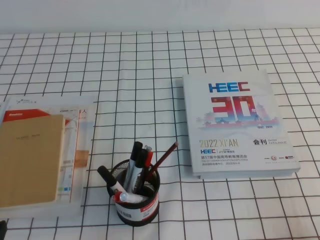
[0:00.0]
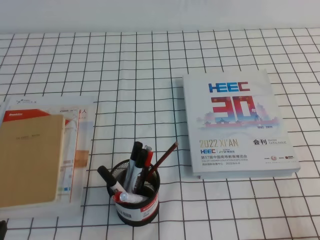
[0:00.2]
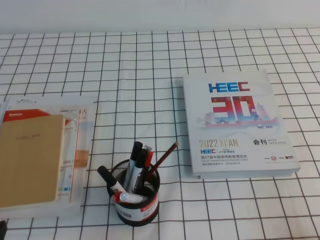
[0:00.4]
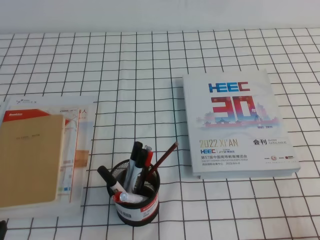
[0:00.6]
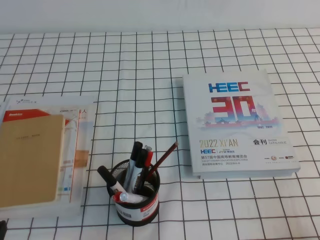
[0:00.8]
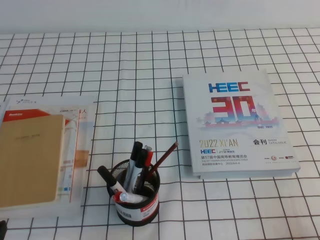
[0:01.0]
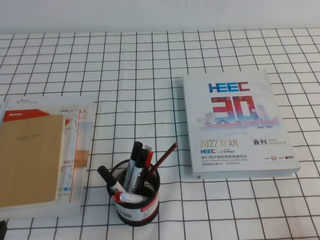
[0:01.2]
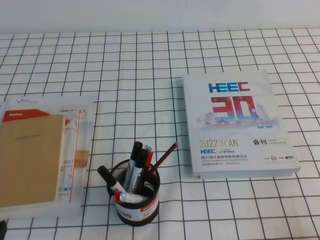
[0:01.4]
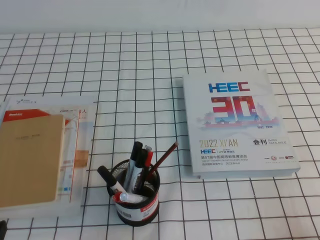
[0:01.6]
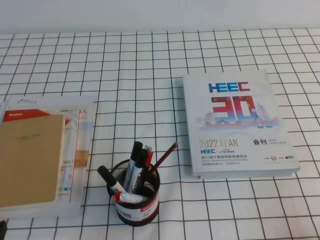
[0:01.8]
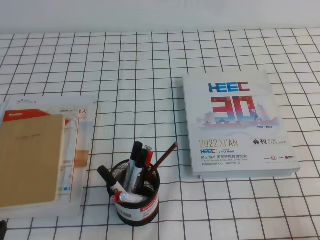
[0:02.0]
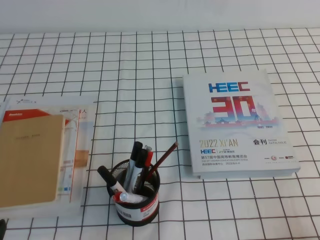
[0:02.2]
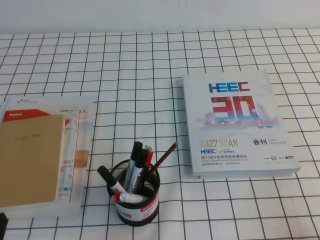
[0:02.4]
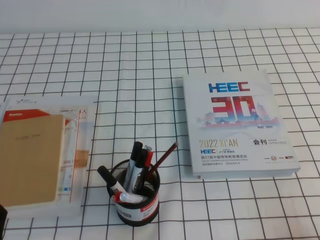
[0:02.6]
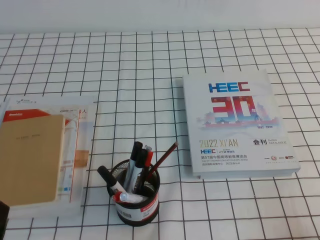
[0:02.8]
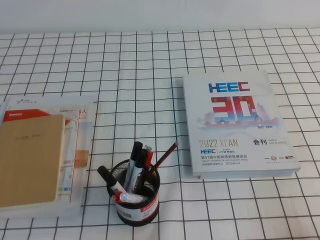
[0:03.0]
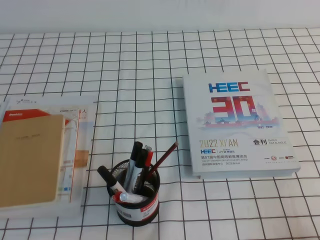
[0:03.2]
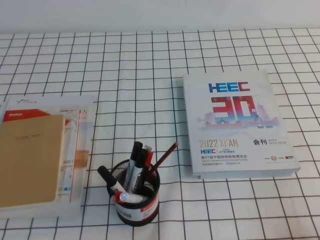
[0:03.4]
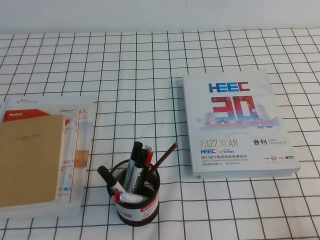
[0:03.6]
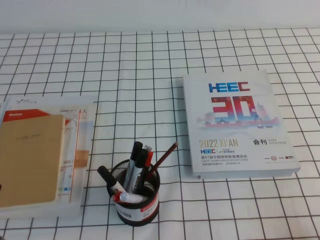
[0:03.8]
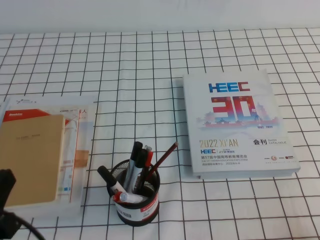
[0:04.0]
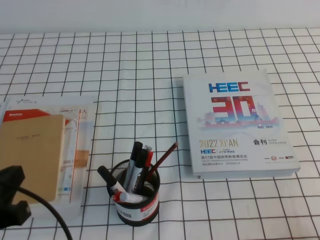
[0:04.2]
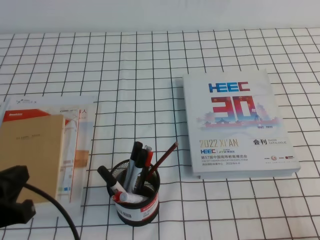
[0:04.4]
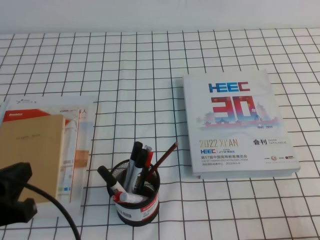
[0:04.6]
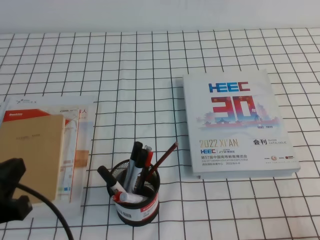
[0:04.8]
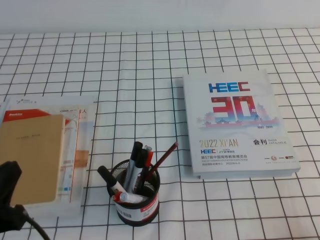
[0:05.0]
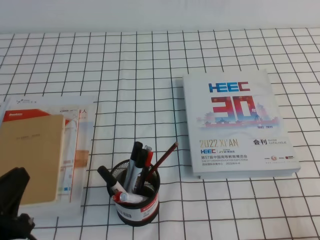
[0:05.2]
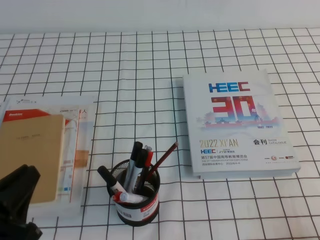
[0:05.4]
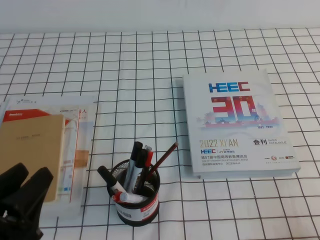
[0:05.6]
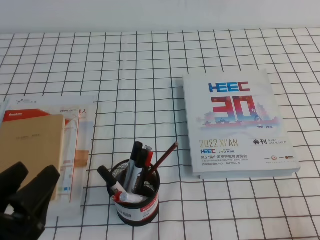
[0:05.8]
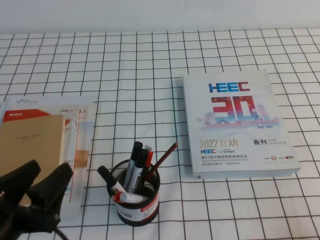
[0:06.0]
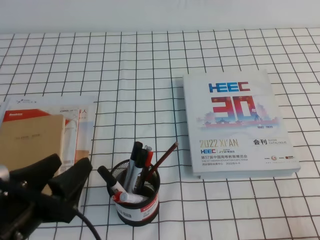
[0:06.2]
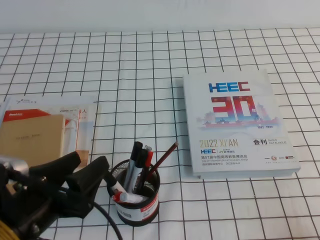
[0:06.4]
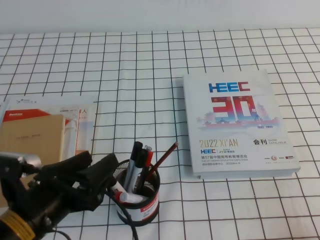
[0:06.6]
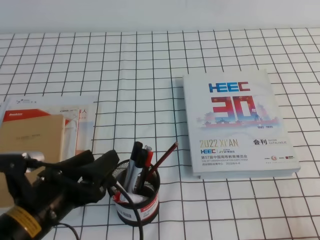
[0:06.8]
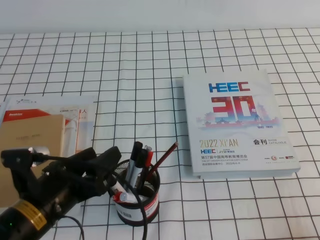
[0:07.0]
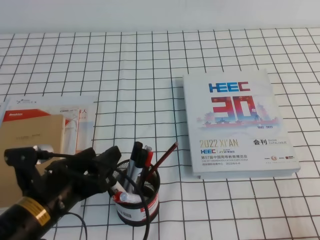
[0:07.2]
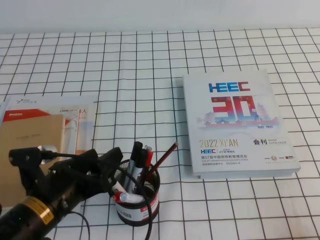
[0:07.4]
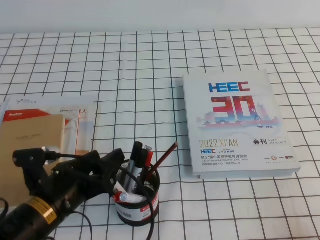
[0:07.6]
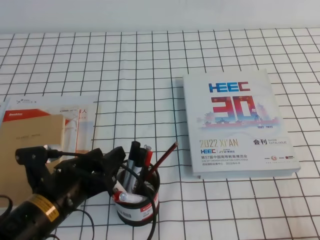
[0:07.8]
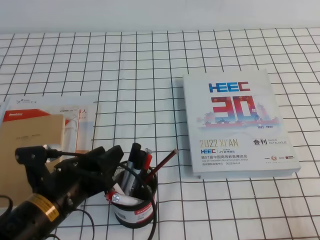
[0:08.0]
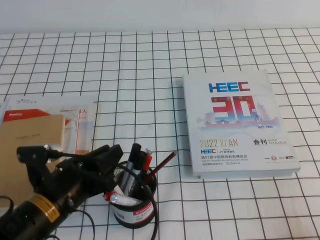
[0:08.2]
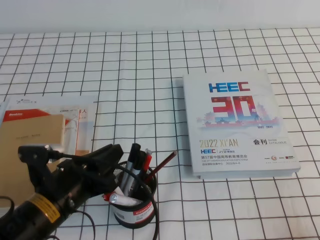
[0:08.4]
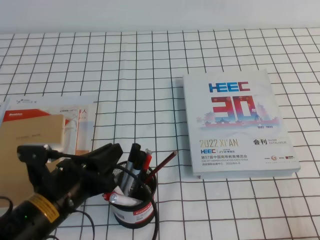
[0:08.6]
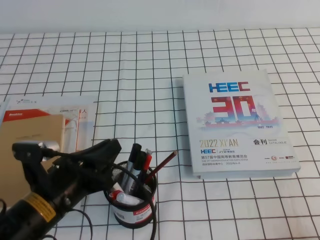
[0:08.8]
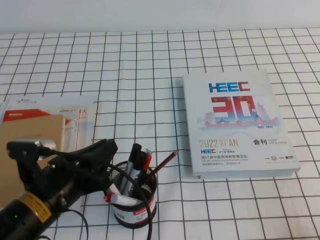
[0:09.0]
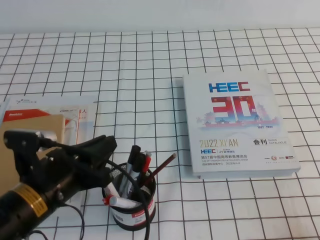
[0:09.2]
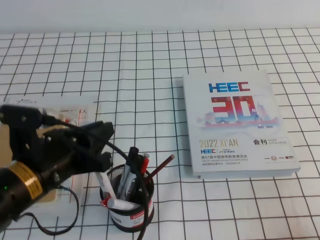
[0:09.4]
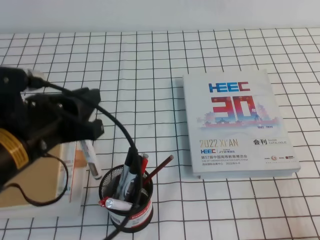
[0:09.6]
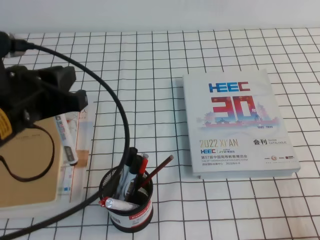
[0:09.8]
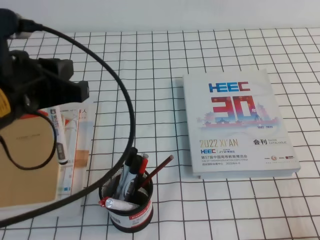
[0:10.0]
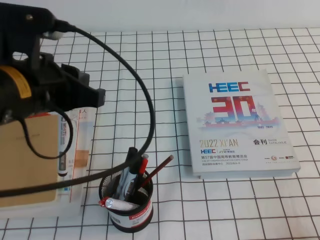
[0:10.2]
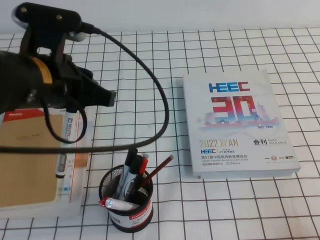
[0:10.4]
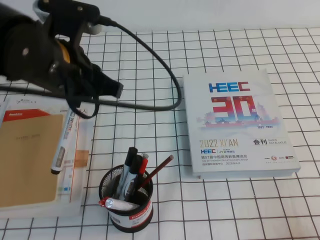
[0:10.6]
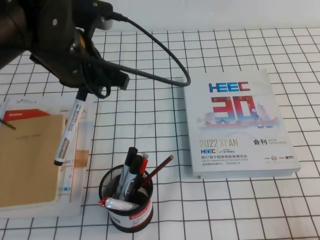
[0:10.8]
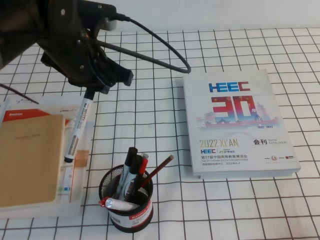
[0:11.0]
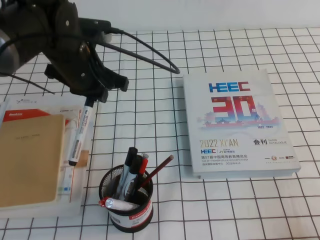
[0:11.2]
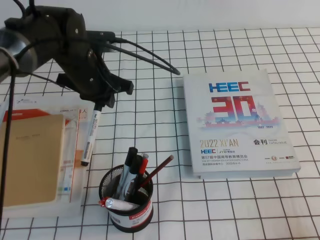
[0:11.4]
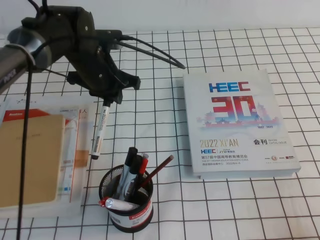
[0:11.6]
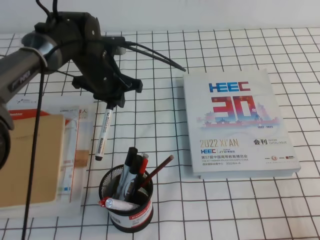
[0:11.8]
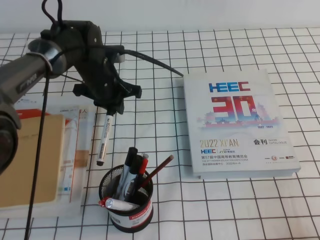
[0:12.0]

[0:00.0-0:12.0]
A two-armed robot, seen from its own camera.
0:00.0 to 0:01.6: Both grippers stay put.
0:03.0 to 0:04.4: The left gripper moves upward and forward, approximately 10 cm.
0:04.4 to 0:06.0: The left gripper opens its fingers.
0:06.0 to 0:07.6: The left gripper moves forward, downward and to the right, approximately 10 cm.
0:07.6 to 0:09.0: The left gripper closes.
0:09.0 to 0:10.4: The left gripper is displaced upward by approximately 15 cm.
0:10.4 to 0:12.0: The left gripper shifts roughly 25 cm forward and downward.

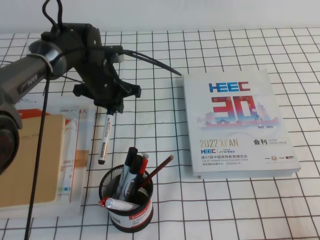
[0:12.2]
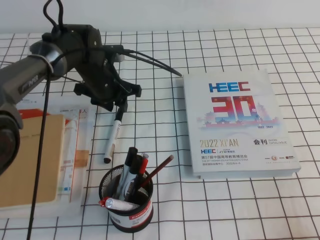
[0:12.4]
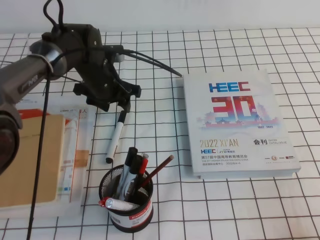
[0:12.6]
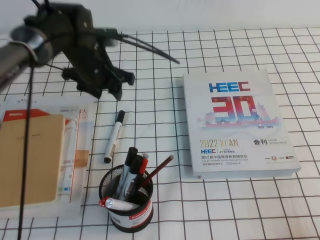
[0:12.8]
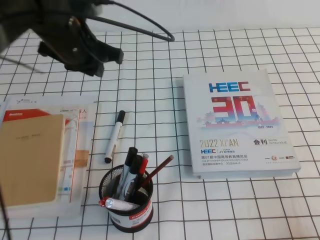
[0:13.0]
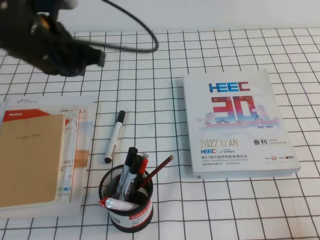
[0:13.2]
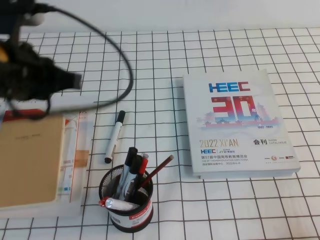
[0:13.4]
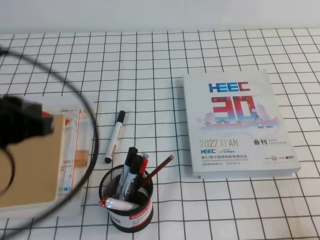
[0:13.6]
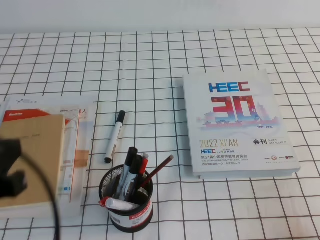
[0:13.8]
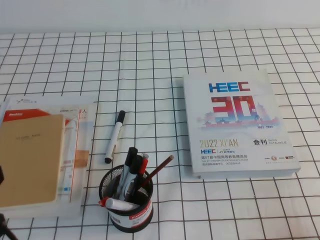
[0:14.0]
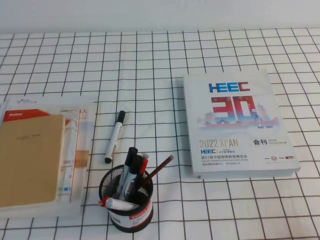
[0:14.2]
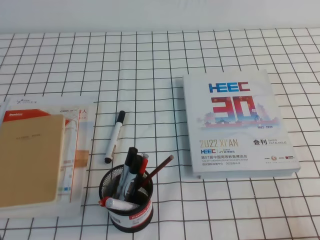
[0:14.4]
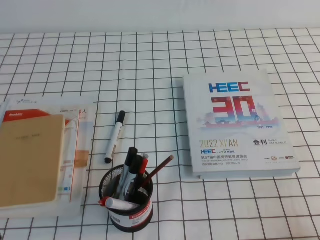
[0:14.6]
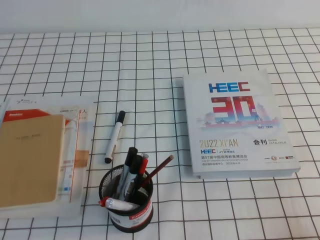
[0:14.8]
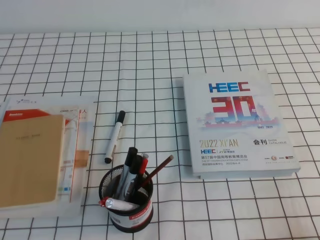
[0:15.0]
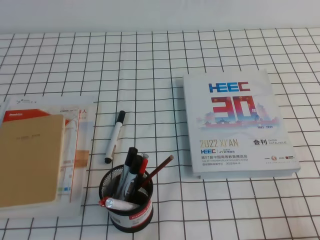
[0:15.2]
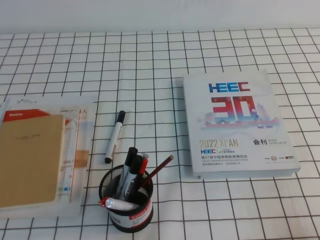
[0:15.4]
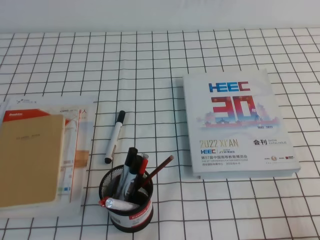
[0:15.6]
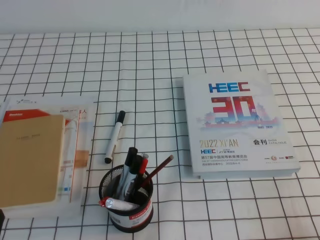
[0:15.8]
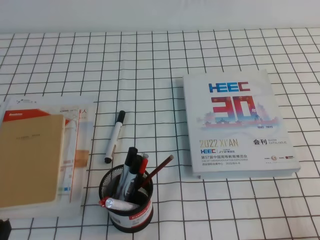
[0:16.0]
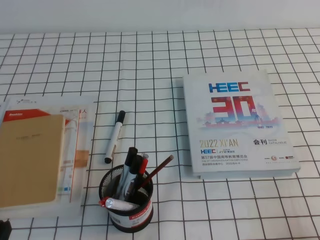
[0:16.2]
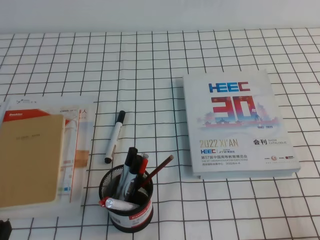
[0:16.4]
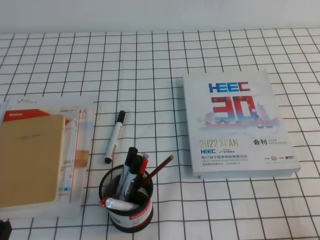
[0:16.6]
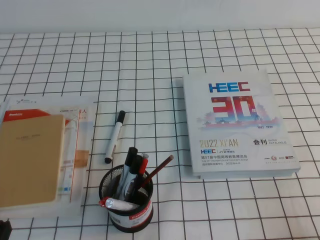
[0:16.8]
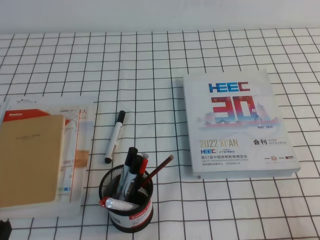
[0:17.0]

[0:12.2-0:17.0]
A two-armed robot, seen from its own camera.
Step, 0:12.2 to 0:17.0: Pick up the pen from the pen holder.
0:12.2 to 0:13.8: The left gripper heads backward and upward, covering roughly 35 cm, and opens, then closes again.
0:13.8 to 0:15.4: The left gripper heads downward and backward, covering some 15 cm.

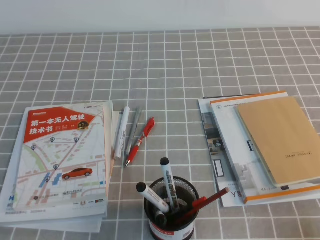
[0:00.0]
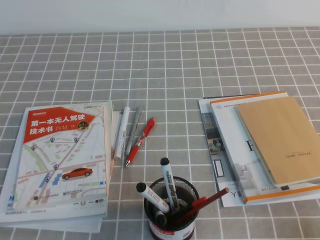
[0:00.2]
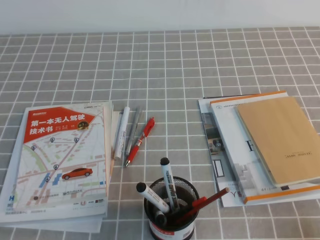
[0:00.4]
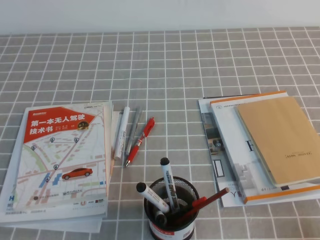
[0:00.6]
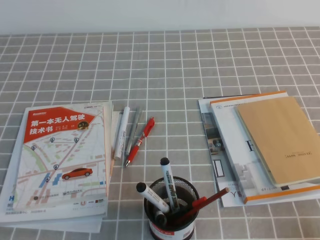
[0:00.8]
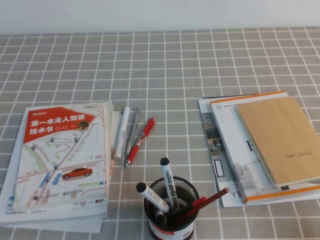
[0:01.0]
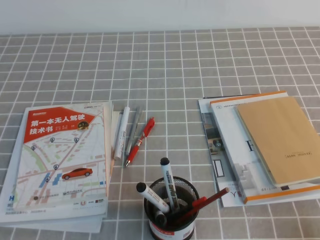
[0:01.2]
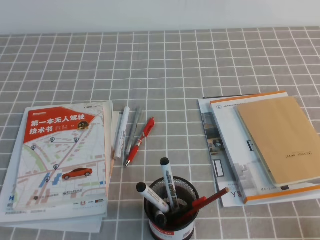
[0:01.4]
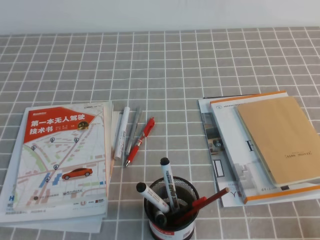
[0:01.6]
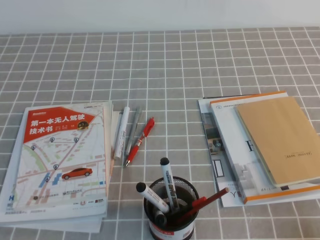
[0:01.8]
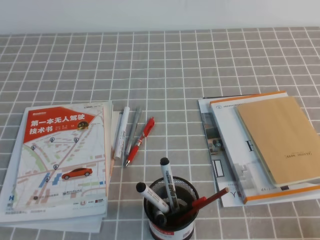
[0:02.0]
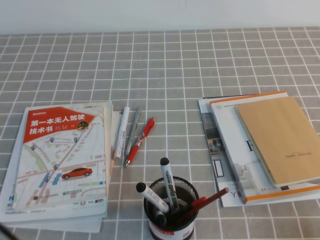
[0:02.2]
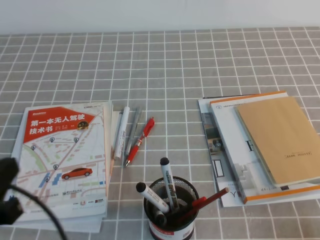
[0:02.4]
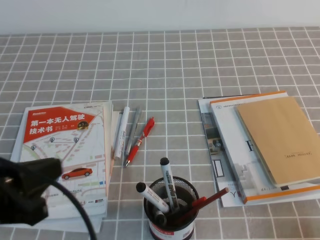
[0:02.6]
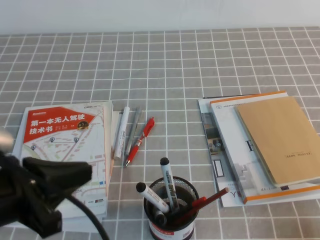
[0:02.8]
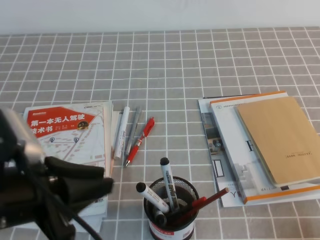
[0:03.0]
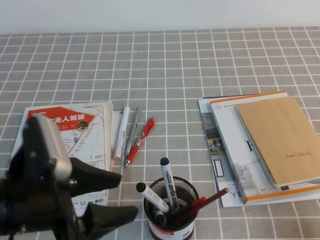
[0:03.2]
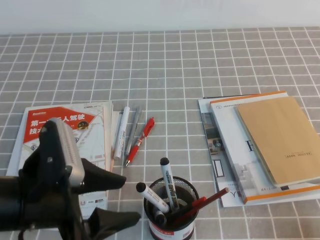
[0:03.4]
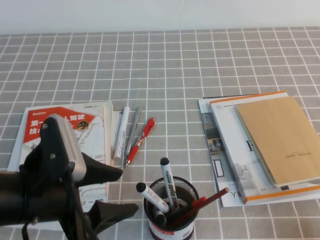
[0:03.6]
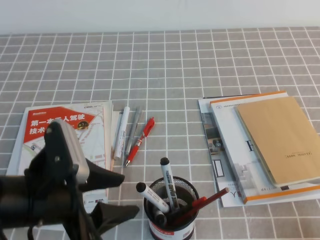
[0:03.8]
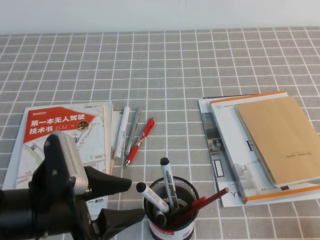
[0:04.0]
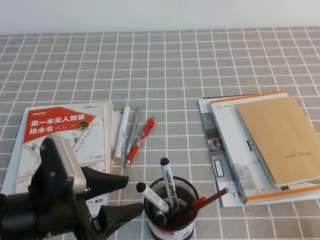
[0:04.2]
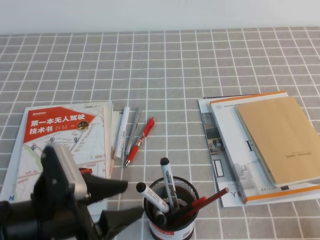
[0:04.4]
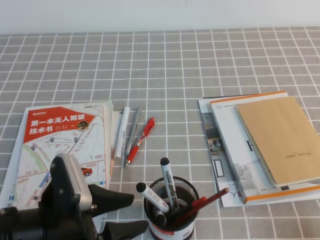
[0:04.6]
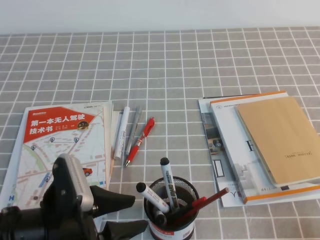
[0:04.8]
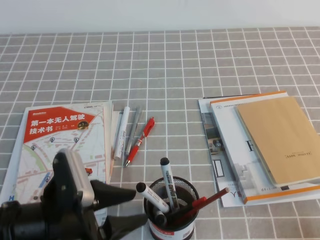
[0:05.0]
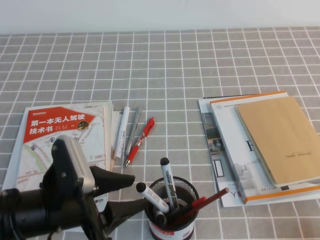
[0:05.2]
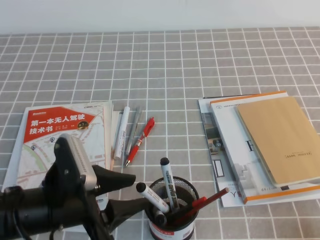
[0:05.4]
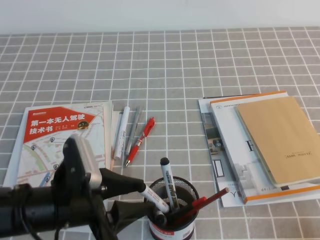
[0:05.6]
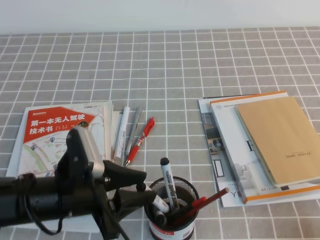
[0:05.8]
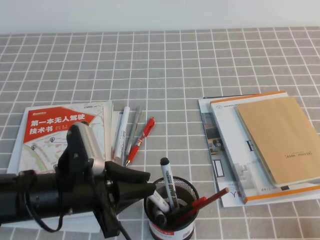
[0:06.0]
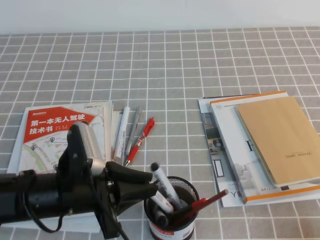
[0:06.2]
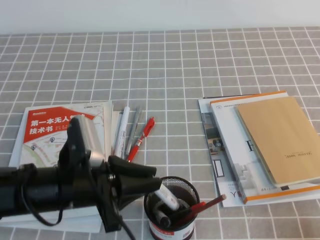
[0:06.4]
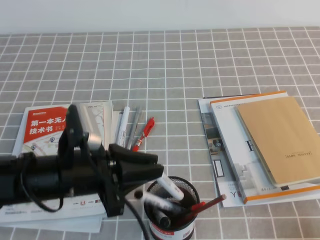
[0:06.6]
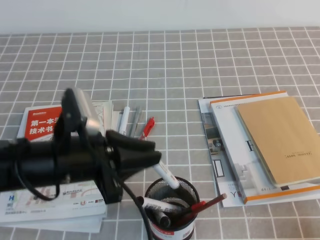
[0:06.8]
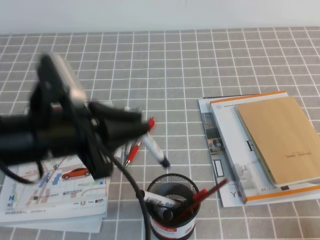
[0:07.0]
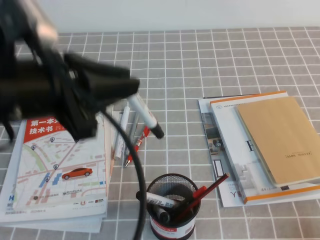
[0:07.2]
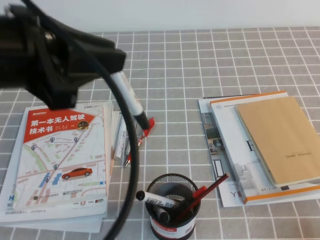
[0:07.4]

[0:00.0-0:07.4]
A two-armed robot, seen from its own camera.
0:01.4 to 0:03.0: The left gripper heads upward, to the right and forward, covering some 15 cm, and opens up.
0:03.0 to 0:04.4: The left gripper heads downward, covering about 10 cm, and opens up.
0:04.4 to 0:06.0: The left gripper closes up.
0:06.0 to 0:07.4: The left gripper shifts roughly 20 cm upward.
